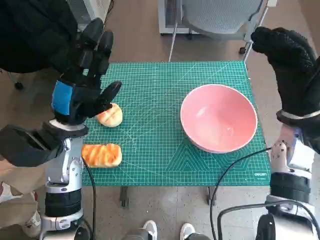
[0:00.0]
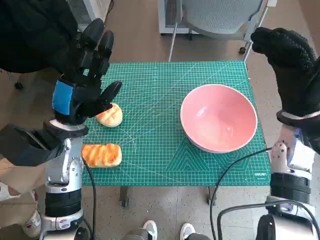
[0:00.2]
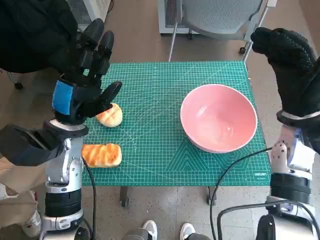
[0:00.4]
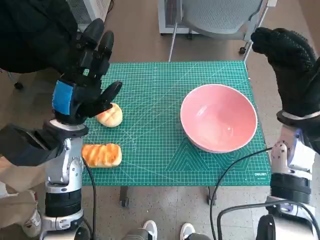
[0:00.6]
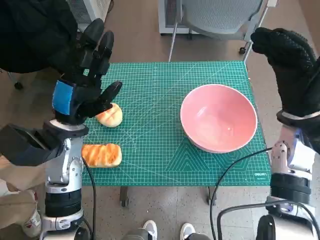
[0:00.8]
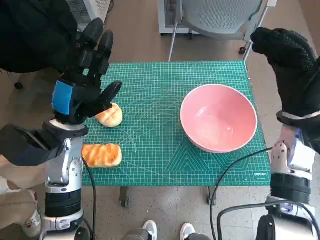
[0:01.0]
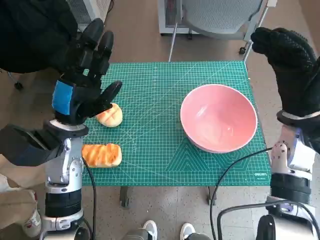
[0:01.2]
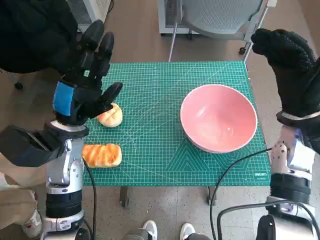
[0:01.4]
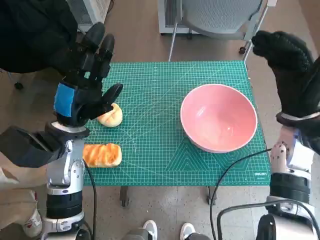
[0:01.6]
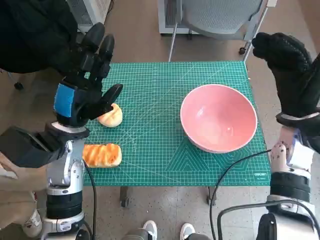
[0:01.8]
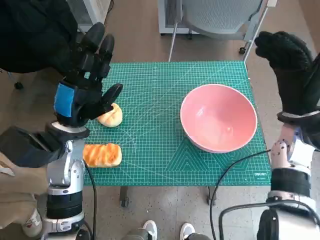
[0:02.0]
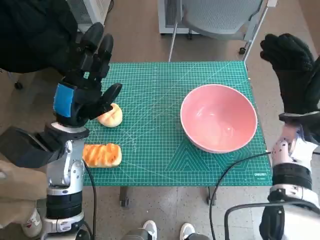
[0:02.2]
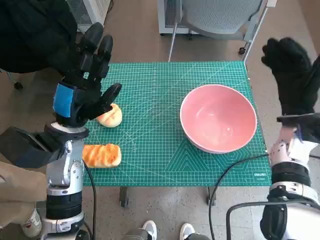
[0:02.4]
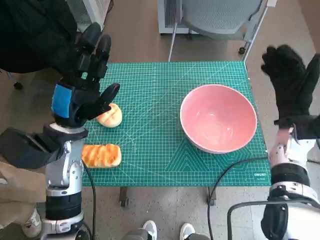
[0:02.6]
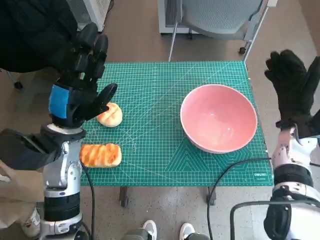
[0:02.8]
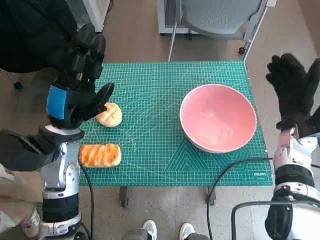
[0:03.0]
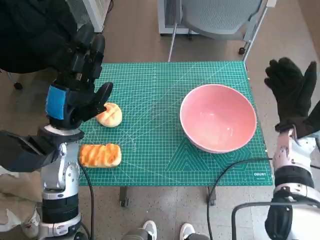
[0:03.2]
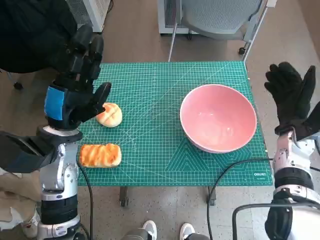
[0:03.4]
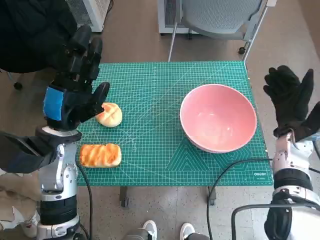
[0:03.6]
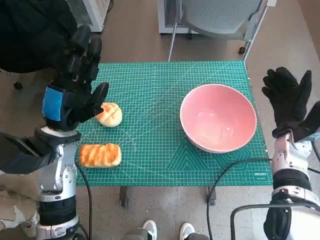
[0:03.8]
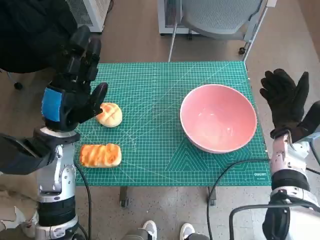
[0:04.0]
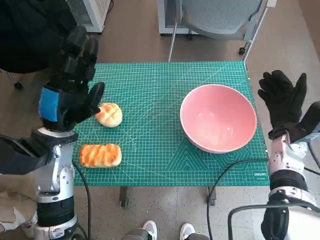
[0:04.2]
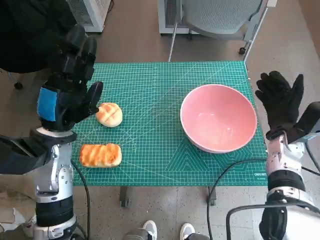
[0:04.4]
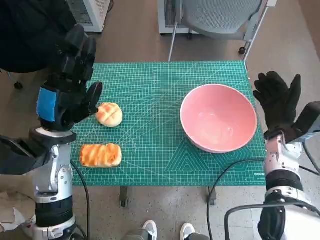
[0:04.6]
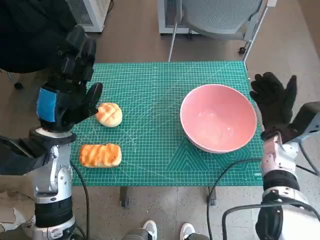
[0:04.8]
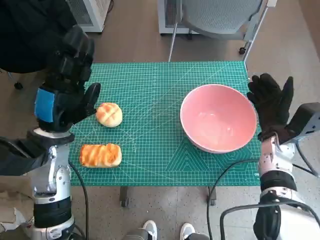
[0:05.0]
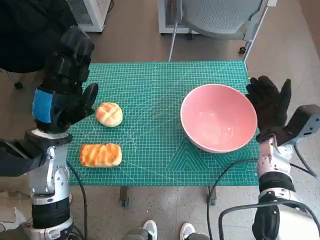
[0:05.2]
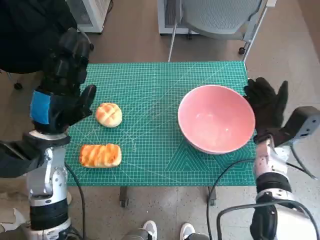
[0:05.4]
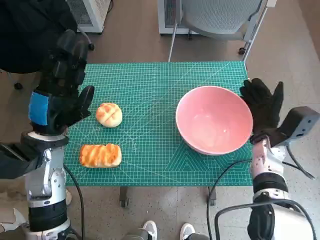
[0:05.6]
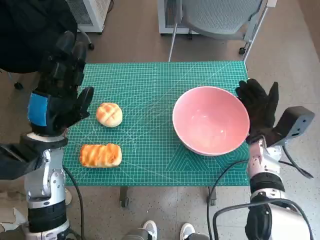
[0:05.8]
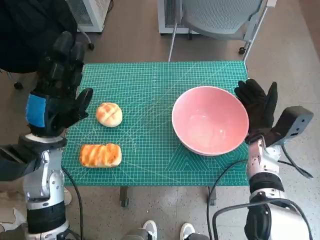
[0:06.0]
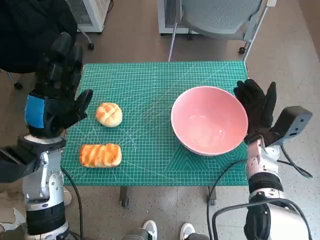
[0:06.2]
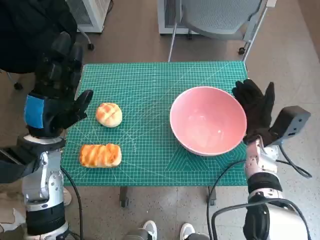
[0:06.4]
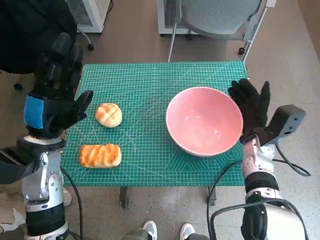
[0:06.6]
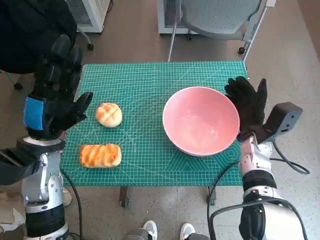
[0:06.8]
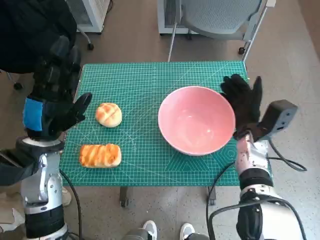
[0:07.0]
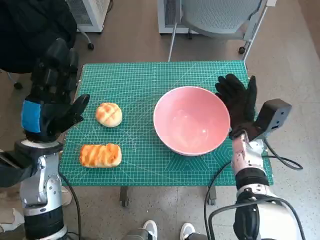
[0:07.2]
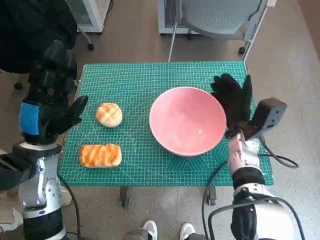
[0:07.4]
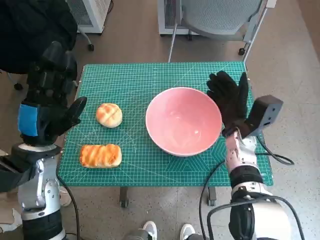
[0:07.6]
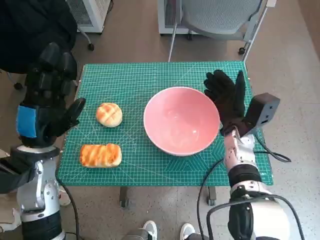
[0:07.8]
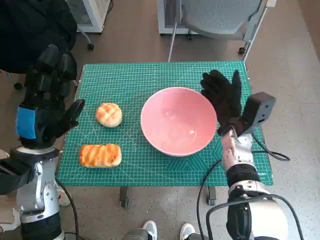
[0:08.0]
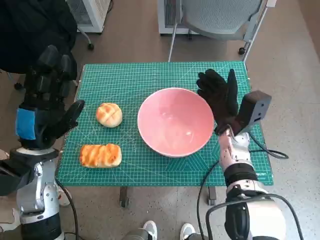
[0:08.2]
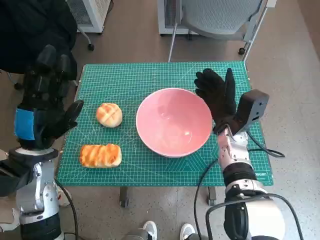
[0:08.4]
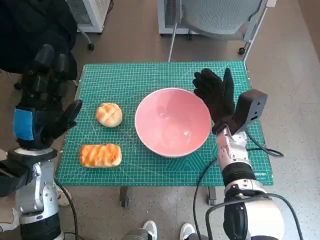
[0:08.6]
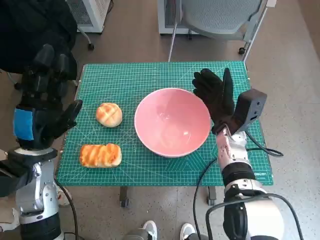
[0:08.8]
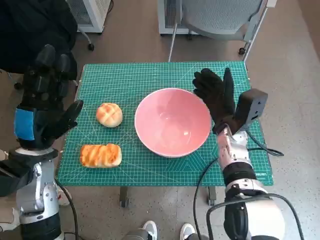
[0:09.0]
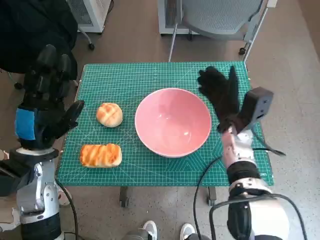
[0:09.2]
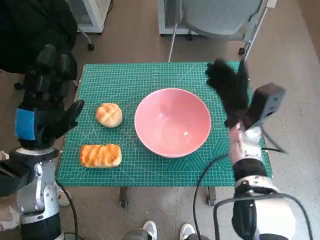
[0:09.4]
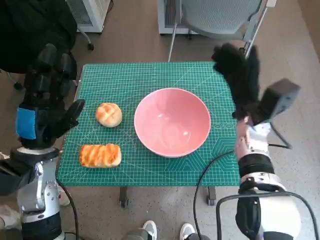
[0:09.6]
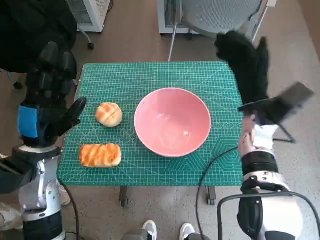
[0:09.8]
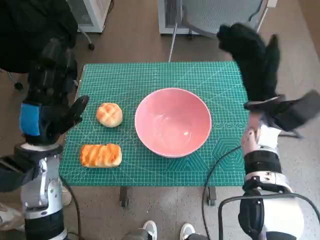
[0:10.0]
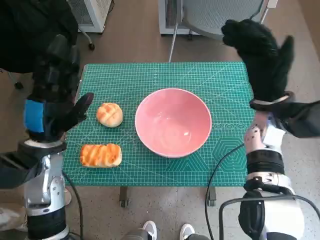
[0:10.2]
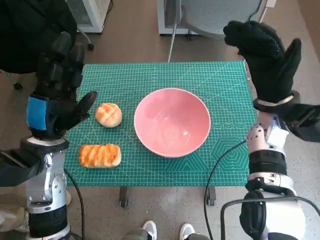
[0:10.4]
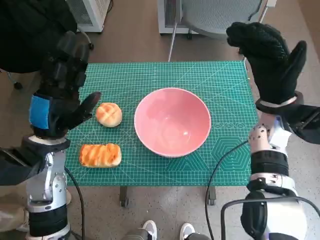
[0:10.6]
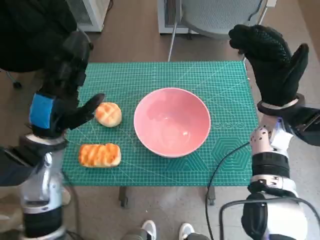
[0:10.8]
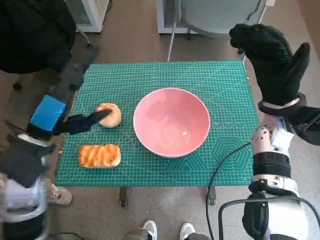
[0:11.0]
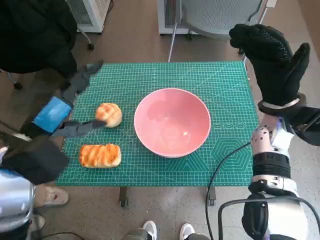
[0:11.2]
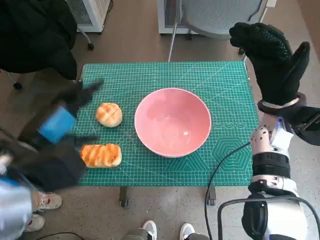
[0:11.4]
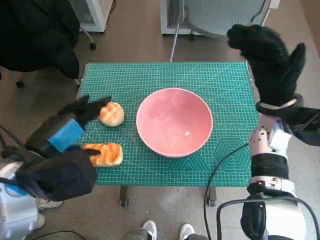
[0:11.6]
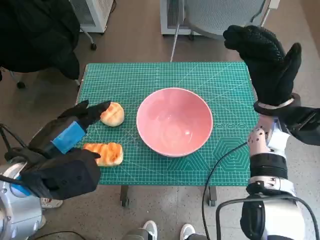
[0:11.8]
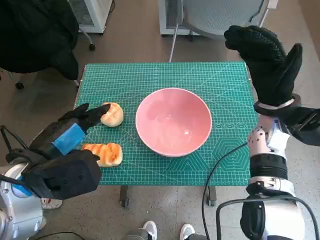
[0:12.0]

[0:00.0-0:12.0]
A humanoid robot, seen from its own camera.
Step, 0:00.0 to 0:09.2: Move the pink bowl to the center of table with right hand.
0:01.6 to 0:03.0: The right hand is displaced downward by some 5 cm.
0:03.0 to 0:04.4: There are only small adjustments of the hands.
0:06.0 to 0:07.6: The right hand shifts about 5 cm to the left.
0:07.6 to 0:09.0: The hands stay close to where they were, moving slightly.
0:09.0 to 0:10.4: The right hand travels upward and to the right by roughly 10 cm.
0:10.4 to 0:12.0: The left hand shifts some 5 cm backward.

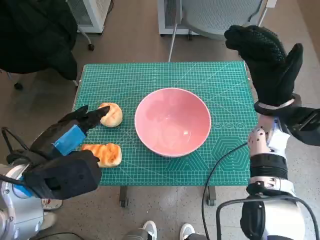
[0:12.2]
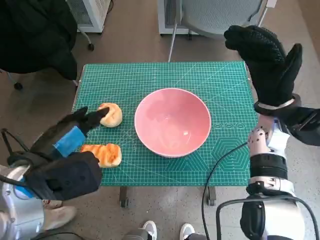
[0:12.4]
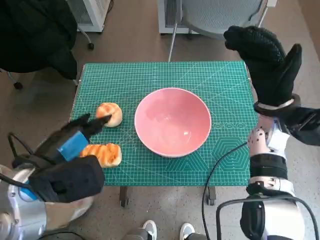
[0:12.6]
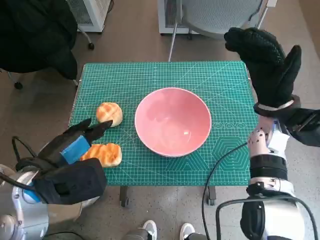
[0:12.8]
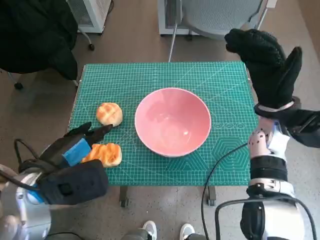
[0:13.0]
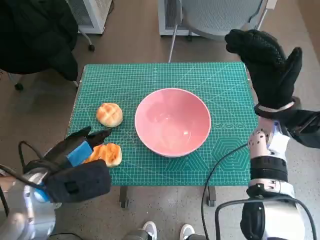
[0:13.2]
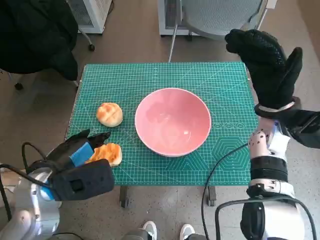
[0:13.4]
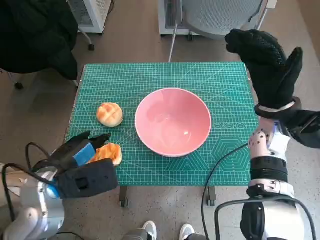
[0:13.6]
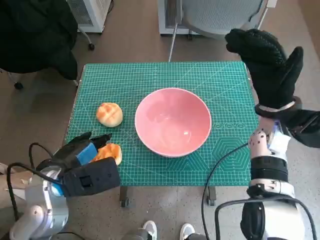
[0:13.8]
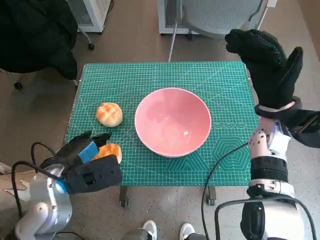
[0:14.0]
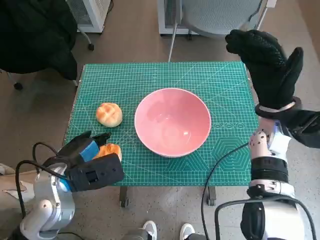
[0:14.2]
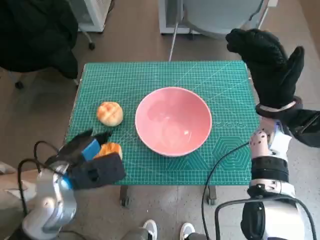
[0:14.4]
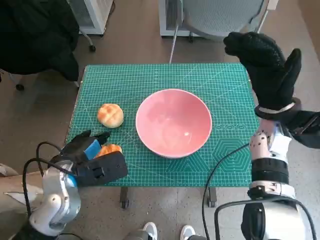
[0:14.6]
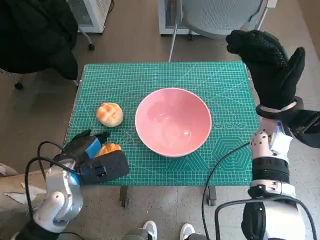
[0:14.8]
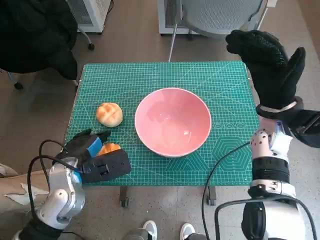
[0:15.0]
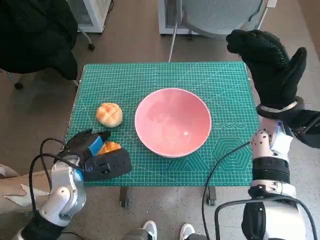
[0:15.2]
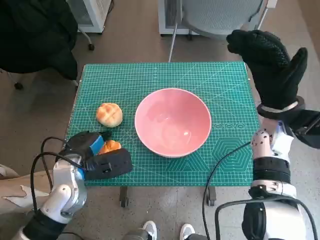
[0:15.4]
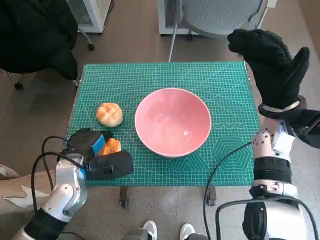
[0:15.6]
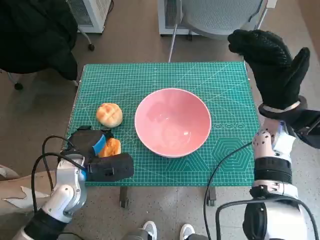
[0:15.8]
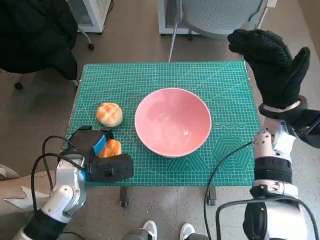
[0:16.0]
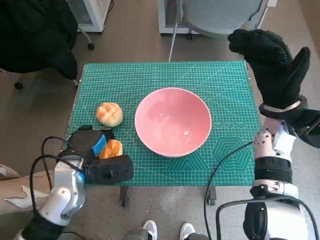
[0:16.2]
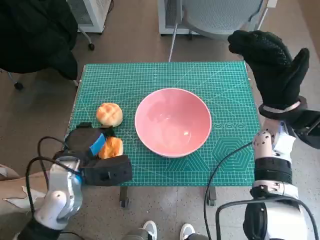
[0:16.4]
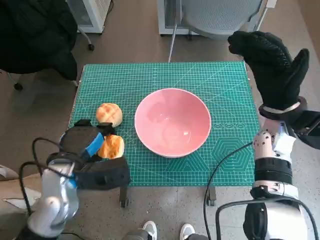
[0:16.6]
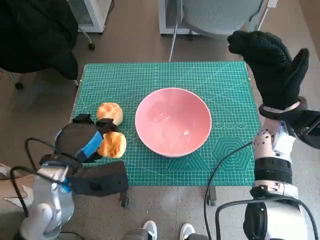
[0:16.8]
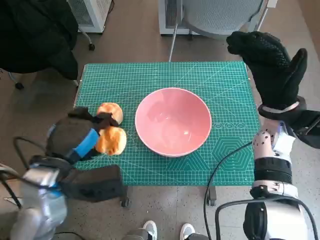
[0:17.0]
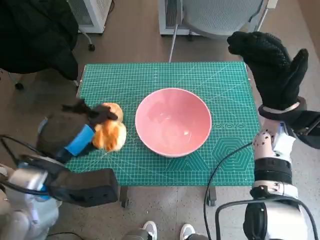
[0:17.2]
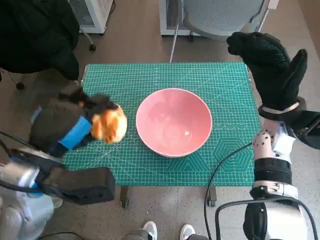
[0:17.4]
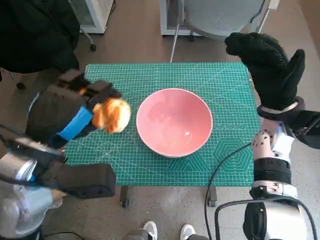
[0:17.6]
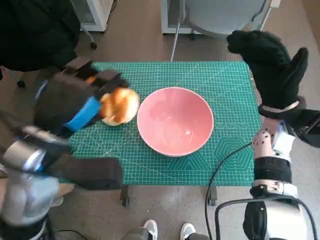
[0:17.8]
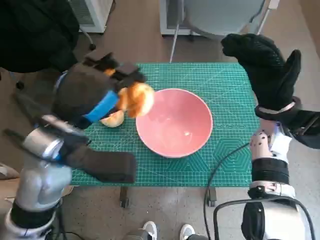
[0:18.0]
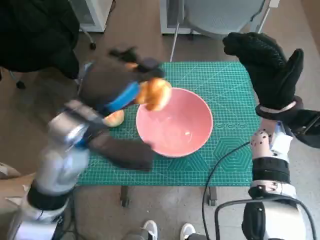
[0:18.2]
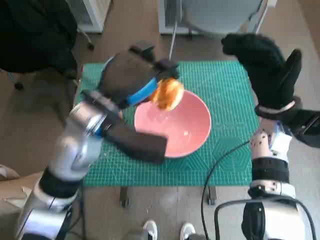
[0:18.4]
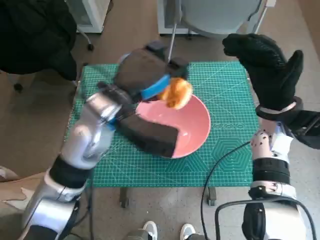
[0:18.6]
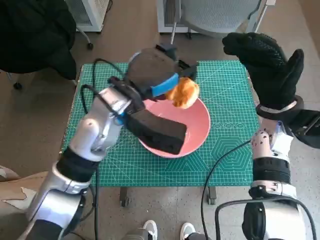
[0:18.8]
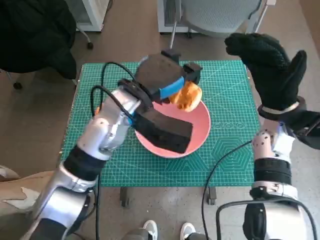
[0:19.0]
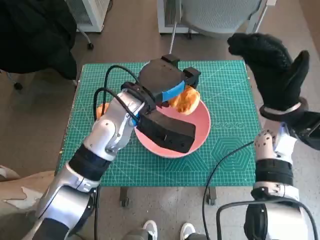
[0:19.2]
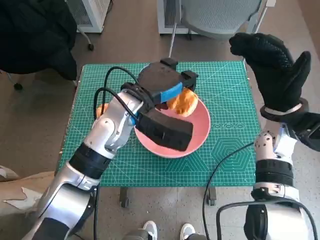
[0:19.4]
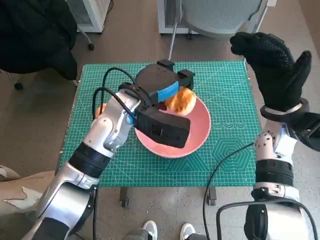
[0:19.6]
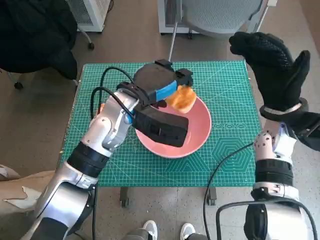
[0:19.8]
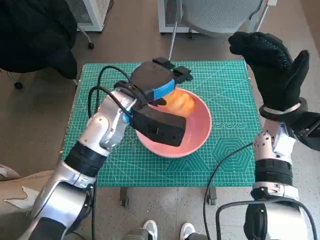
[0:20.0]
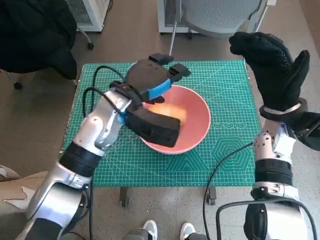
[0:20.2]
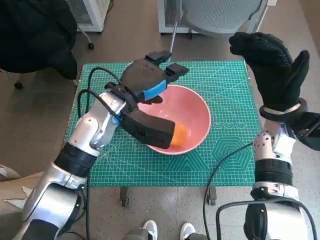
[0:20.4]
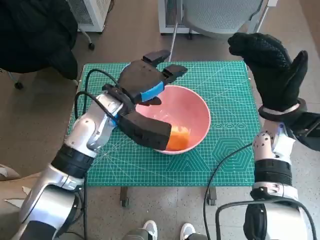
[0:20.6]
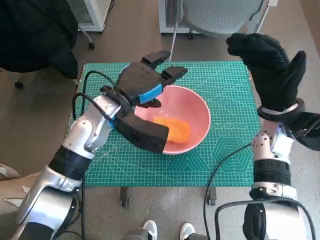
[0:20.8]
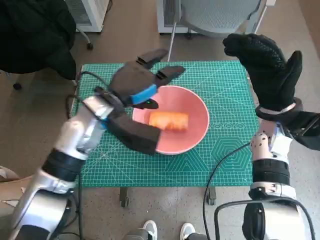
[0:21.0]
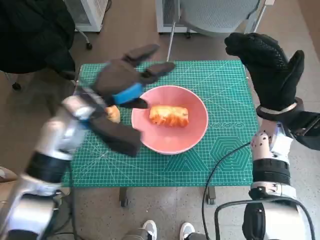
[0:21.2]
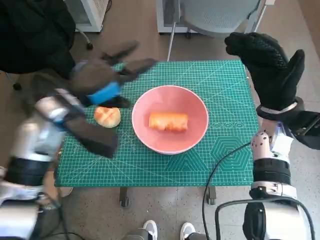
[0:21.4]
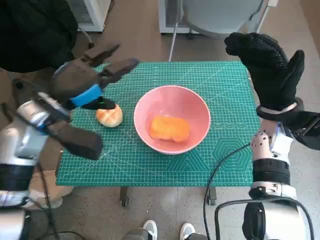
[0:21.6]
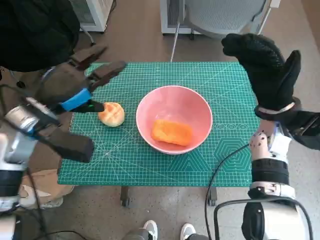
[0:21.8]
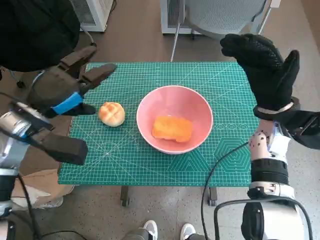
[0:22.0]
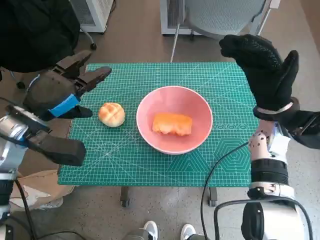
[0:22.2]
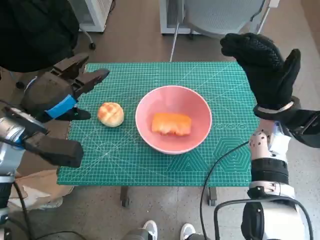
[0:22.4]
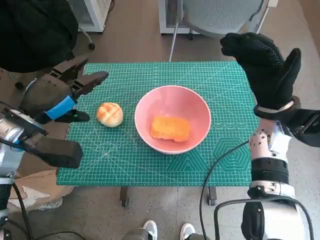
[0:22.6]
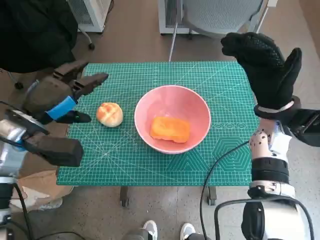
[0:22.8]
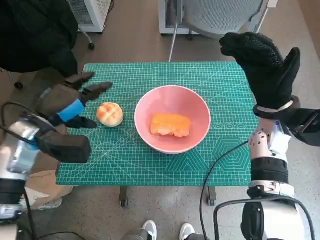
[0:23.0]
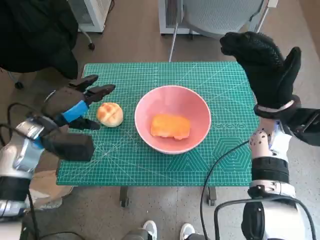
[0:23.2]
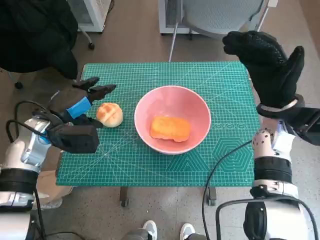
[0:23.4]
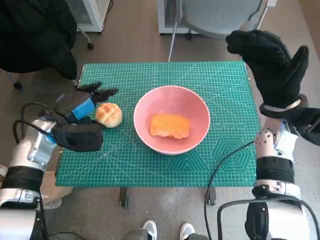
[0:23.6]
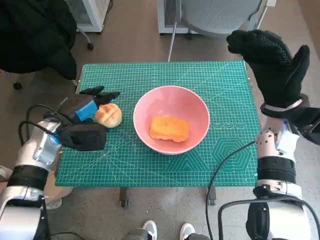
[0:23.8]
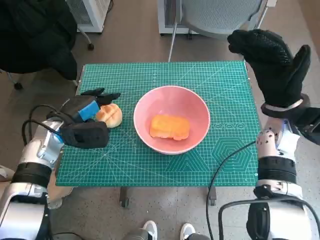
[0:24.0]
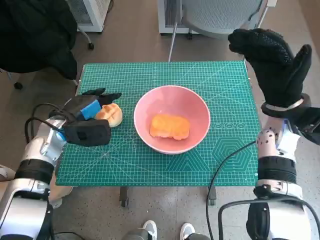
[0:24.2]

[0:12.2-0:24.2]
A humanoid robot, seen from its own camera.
Step, 0:12.2 to 0:15.8: Grasp the long bread with left hand.
Step, 0:16.0 to 0:20.4: Place the long bread in pink bowl with left hand.
0:12.2 to 0:13.8: The left hand heads downward, covering roughly 5 cm.
0:13.8 to 0:15.2: The left hand shifts by roughly 5 cm.
0:15.2 to 0:16.6: The hands make only small movements.
0:16.6 to 0:18.2: The left hand goes about 10 cm upward and to the right.
0:18.2 to 0:19.8: The left hand shifts some 10 cm forward and to the right.
0:19.8 to 0:21.2: The left hand heads to the left, covering approximately 5 cm.
0:21.2 to 0:22.6: The left hand shifts about 10 cm to the left.
0:22.6 to 0:24.2: The left hand shifts some 5 cm downward.
